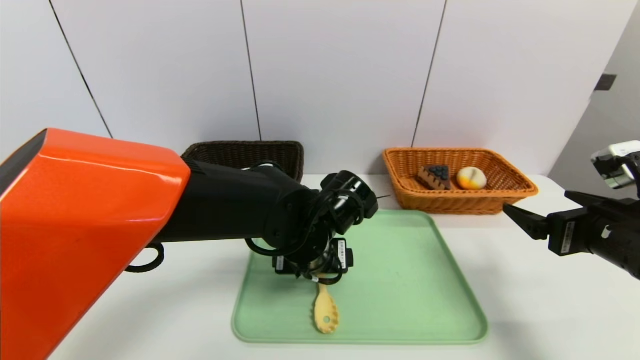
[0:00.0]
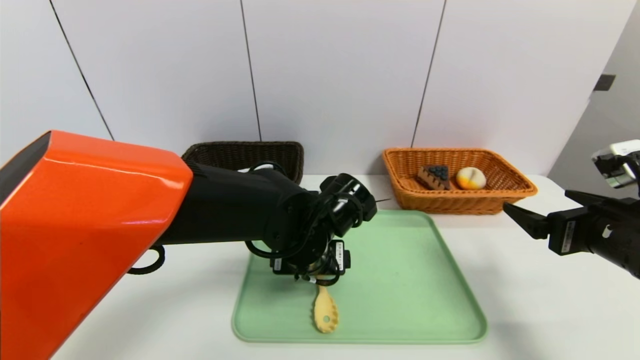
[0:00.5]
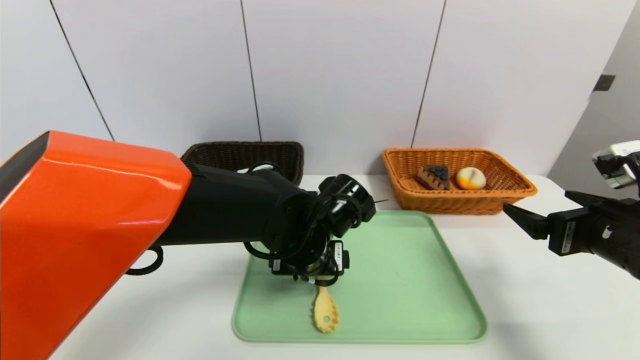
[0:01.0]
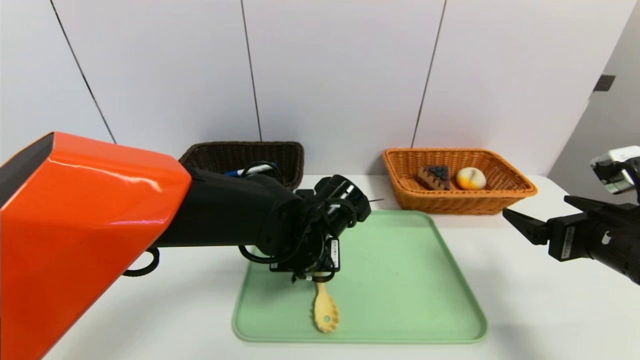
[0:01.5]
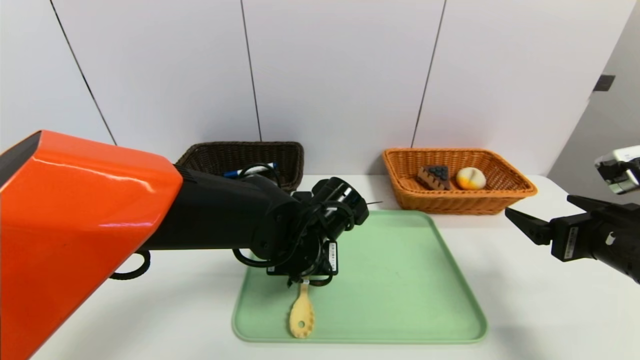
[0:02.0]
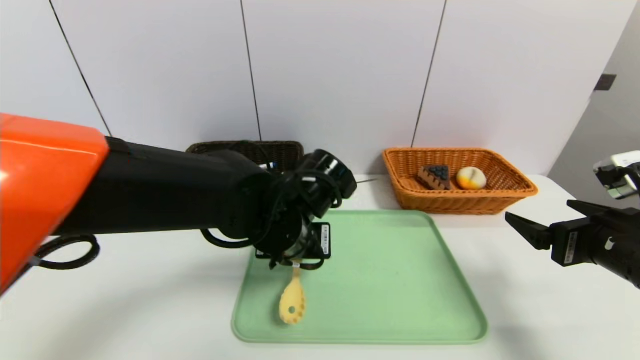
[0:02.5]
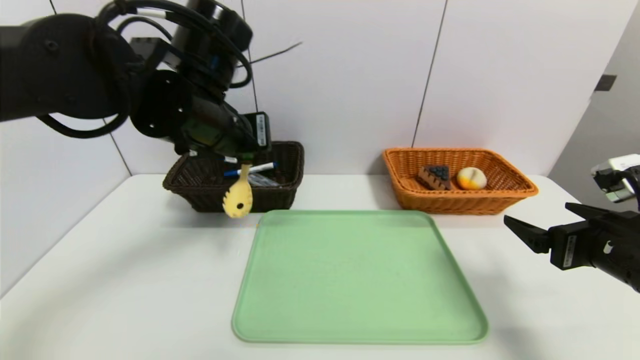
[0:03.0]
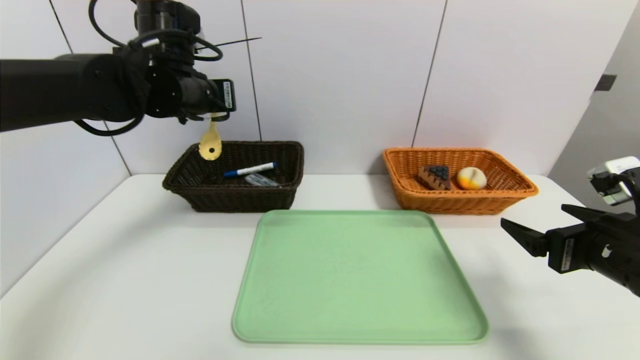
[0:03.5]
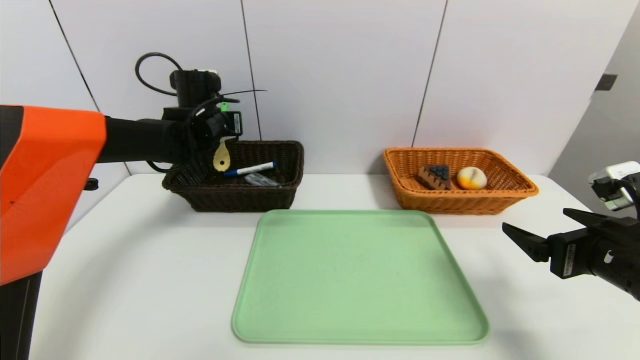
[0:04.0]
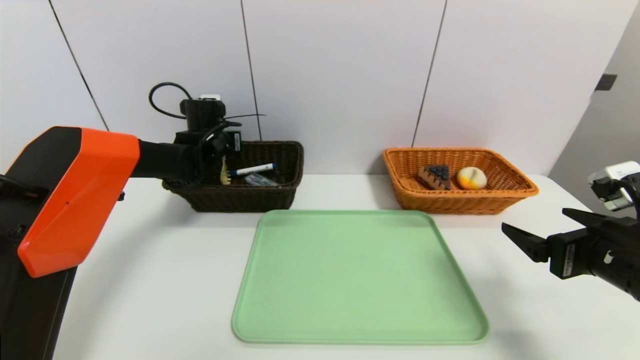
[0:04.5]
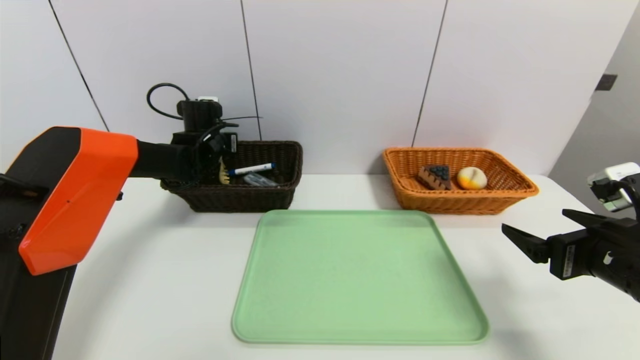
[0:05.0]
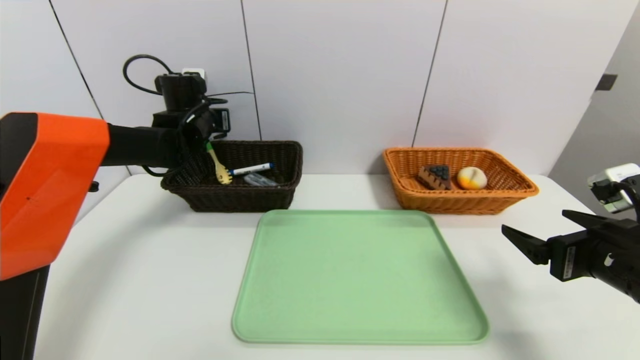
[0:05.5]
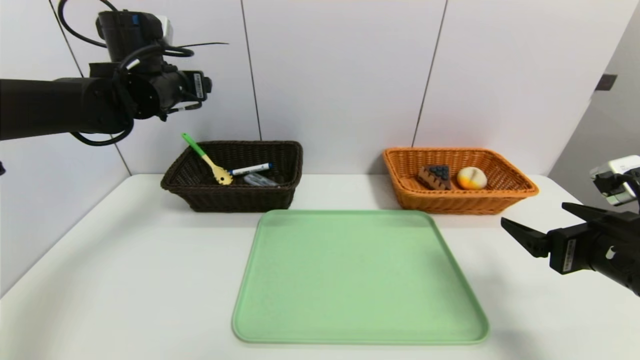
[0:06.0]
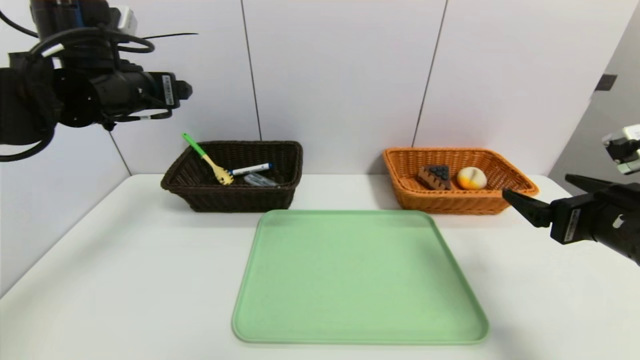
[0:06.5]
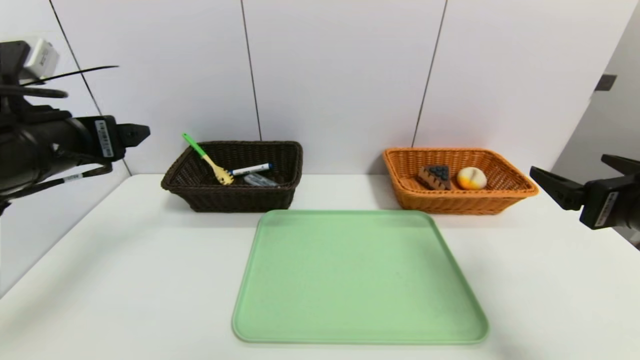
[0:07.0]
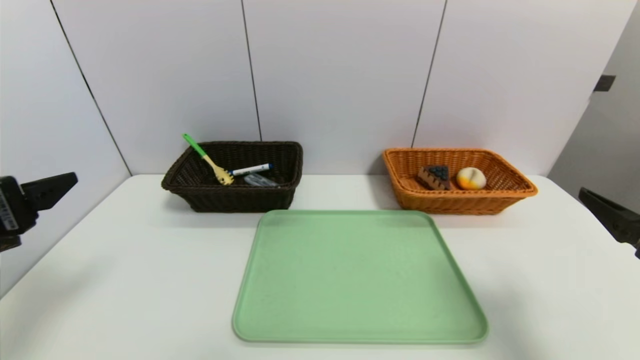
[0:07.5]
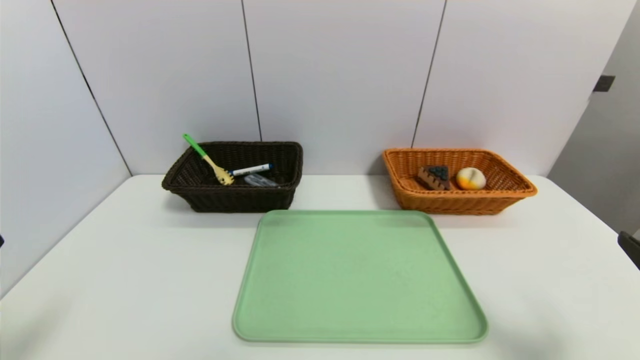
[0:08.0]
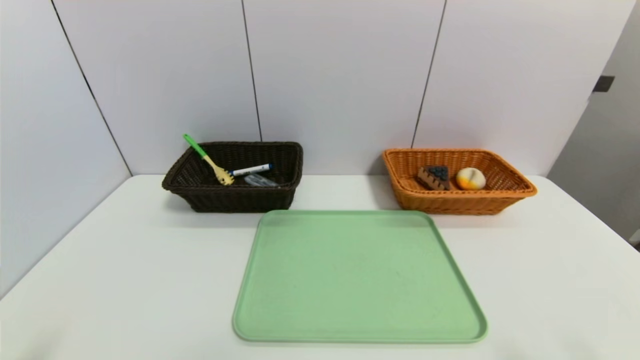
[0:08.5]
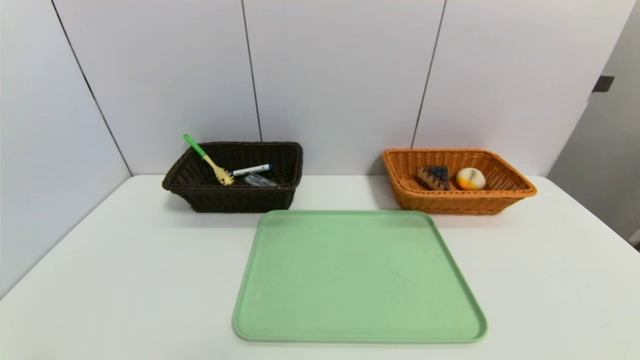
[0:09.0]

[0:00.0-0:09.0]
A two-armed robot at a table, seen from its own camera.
Task of the whole recording: place the food in the right basket with the right gripper, and place the non food items in the left basket with the left gripper.
Step, 0:00.0 to 0:05.5: Grasp the back scratcher and put it in the left basket.
0:00.0 to 0:02.0: The left gripper closes.
0:02.0 to 0:04.5: The left gripper is displaced forward and to the left by some 30 cm.
0:04.5 to 0:07.0: The right gripper heads upward, covering approximately 5 cm. Meanwhile the left gripper shifts roughly 30 cm backward, and opens.
0:07.0 to 0:09.0: Both grippers travel together backward and downward, roughly 25 cm.

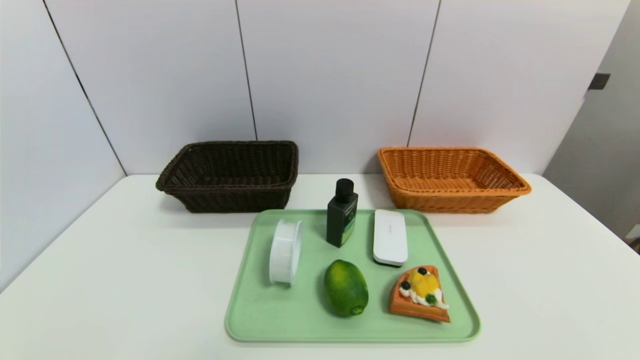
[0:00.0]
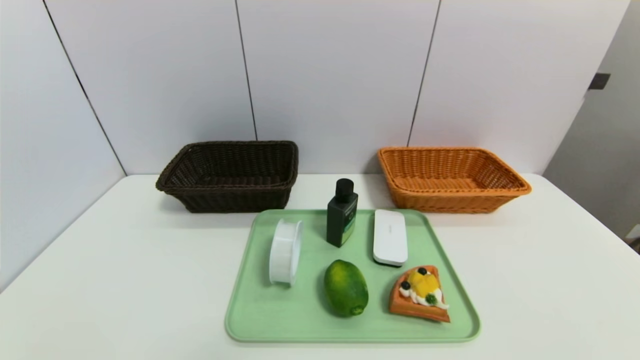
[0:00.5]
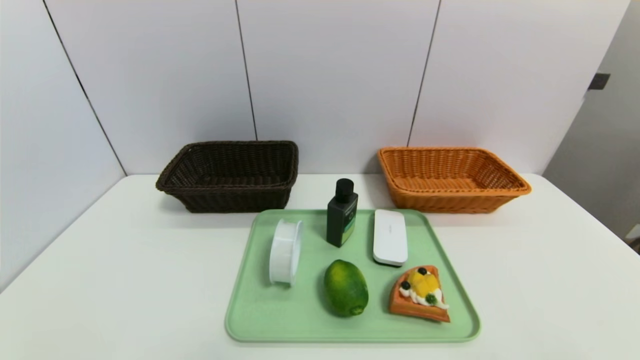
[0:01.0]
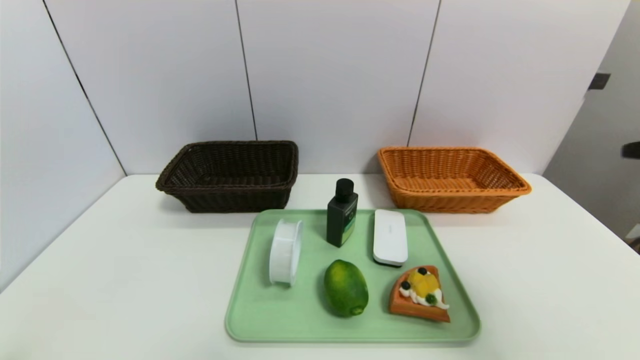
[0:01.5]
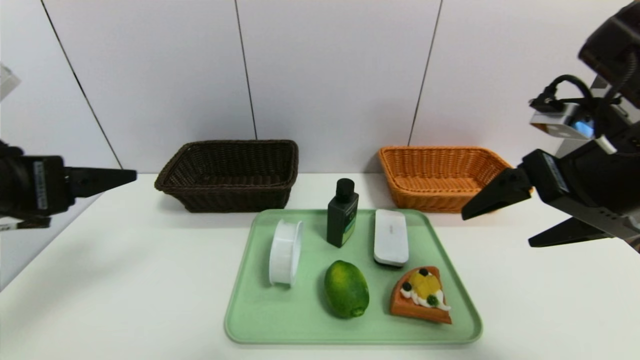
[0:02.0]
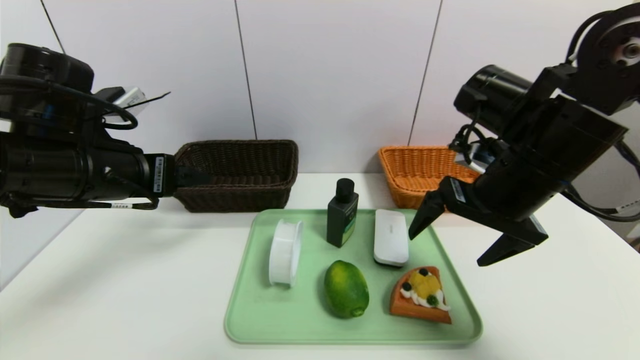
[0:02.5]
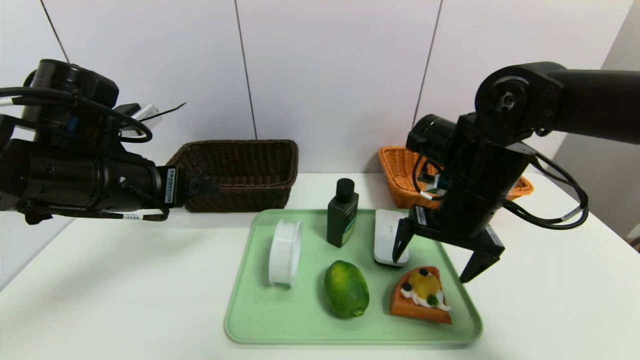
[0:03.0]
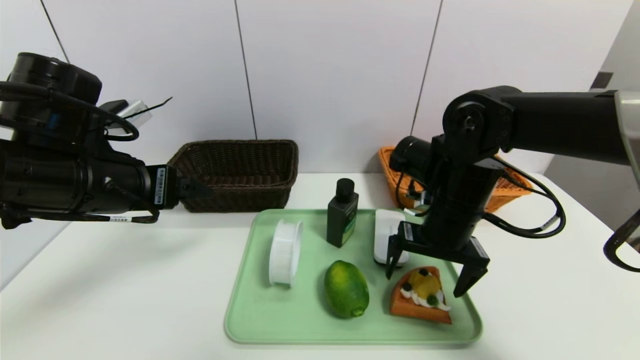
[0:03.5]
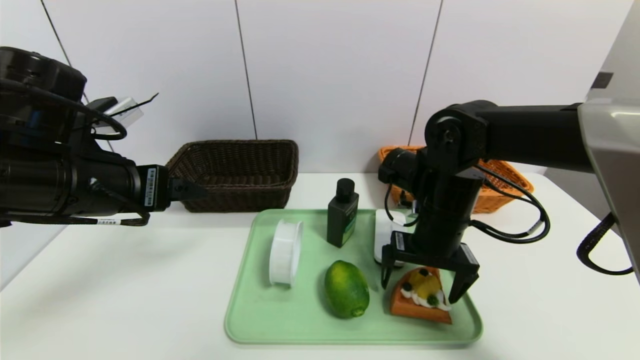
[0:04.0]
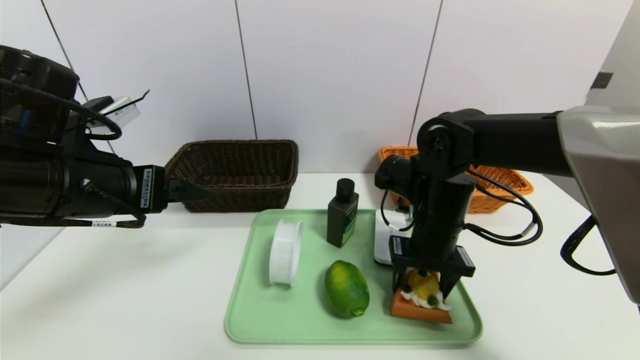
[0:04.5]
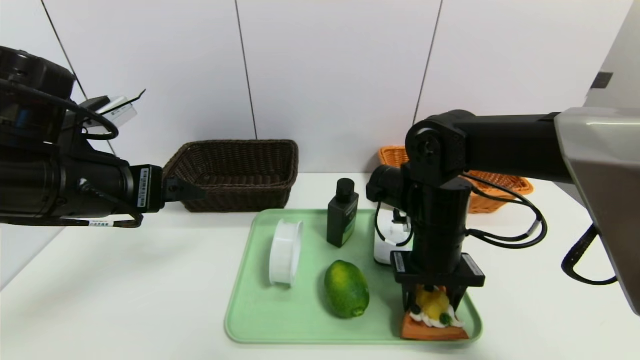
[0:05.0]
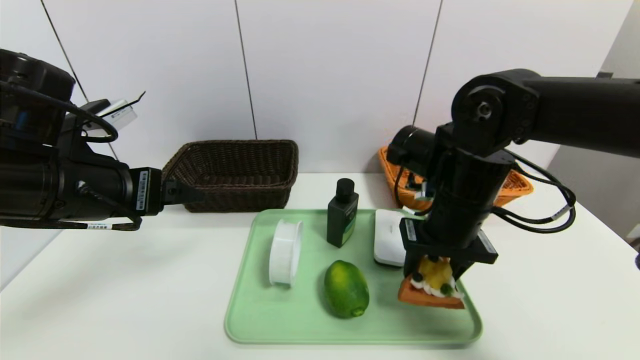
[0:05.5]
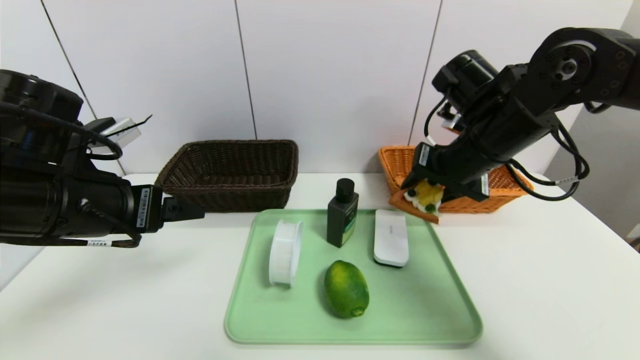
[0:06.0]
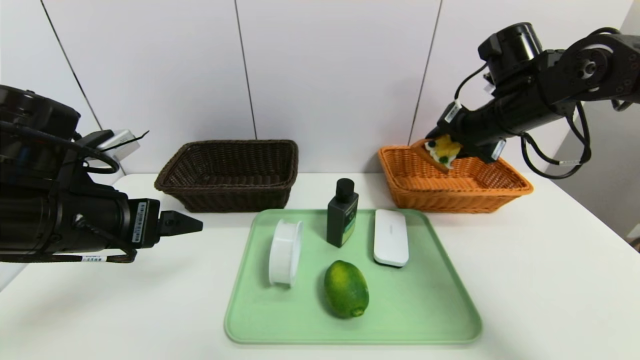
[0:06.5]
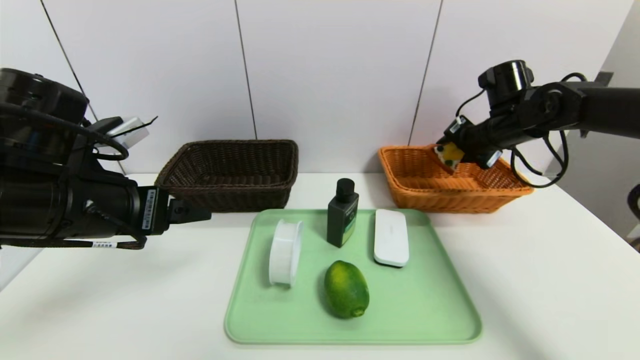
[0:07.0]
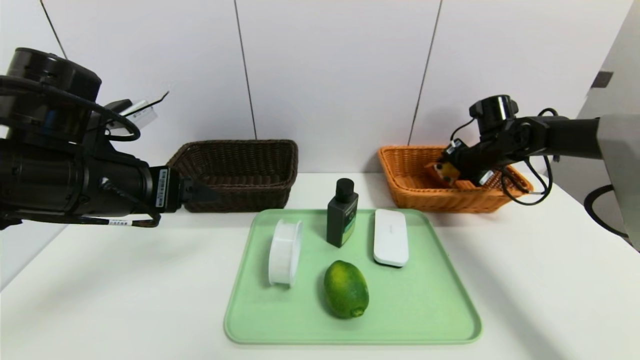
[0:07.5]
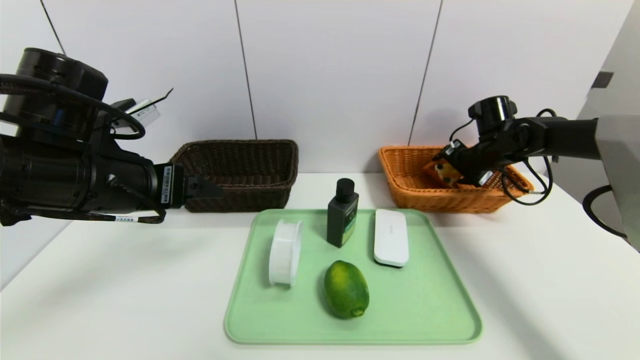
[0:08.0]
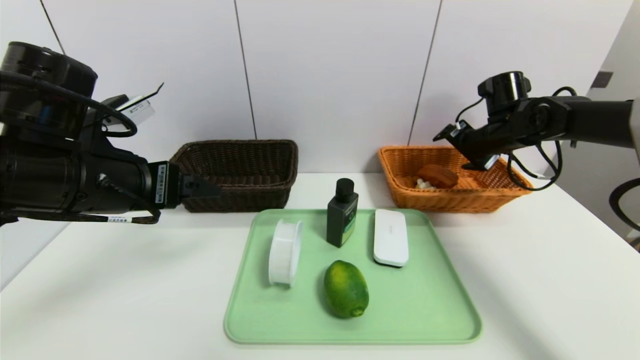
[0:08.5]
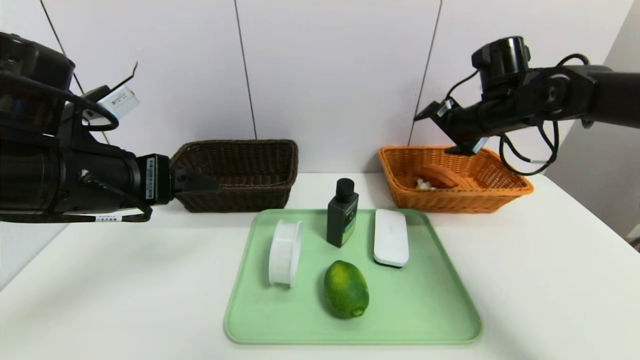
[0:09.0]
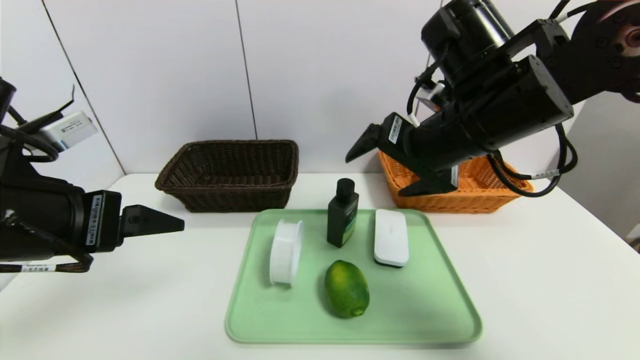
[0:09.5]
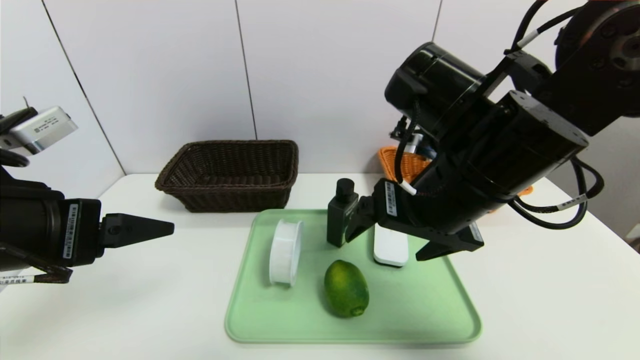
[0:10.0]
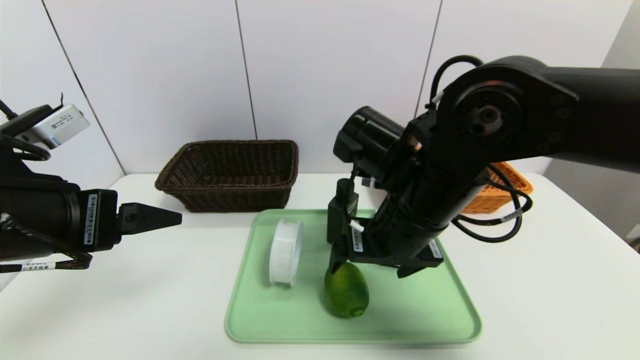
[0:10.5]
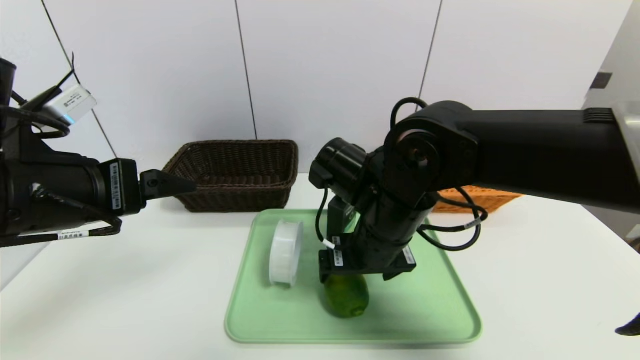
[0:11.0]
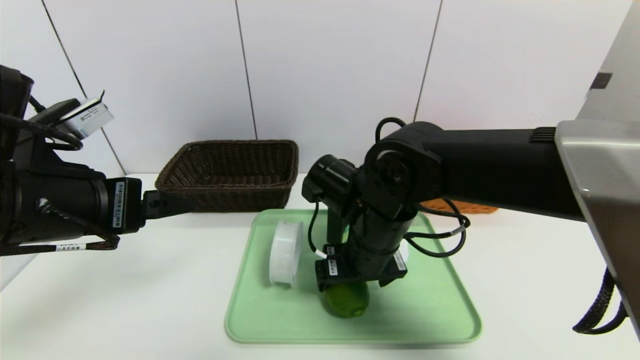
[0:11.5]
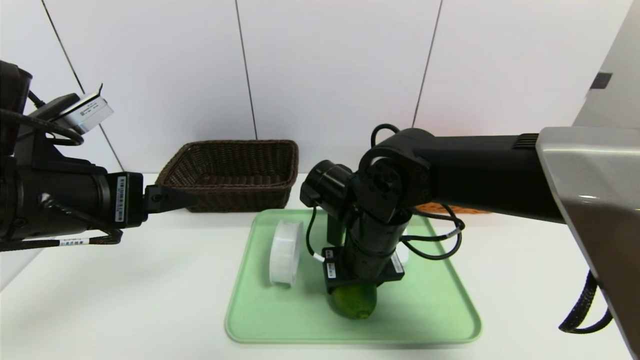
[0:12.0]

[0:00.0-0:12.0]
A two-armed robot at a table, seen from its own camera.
Task of the whole recording: place the food in the right basket with the right gripper, and place the non food items in the left basket with the left gripper.
Step, 0:00.0 to 0:08.5: Grasp the waffle and put it in the right basket.
0:00.0 to 0:02.0: The right gripper moves upward, forward and to the left, approximately 35 cm. Meanwhile the left gripper shifts approximately 30 cm upward and forward.
0:02.0 to 0:04.0: The right gripper travels downward, forward and to the left by about 20 cm. Meanwhile the left gripper shifts approximately 10 cm forward and to the right.
0:04.0 to 0:06.0: The right gripper heads upward, covering some 10 cm, and closes up.
0:06.0 to 0:08.0: The right gripper shifts roughly 20 cm forward, to the right and downward, and opens up.
0:08.0 to 0:10.0: The left gripper is displaced backward by about 10 cm, while the right gripper travels backward, to the left and upward by approximately 35 cm, and opens.
0:10.0 to 0:12.0: The right gripper shifts about 15 cm downward and to the left, and closes up.
